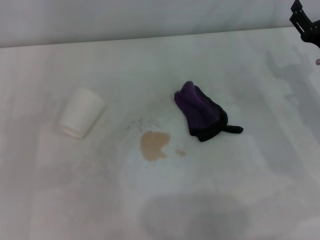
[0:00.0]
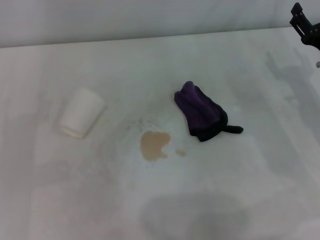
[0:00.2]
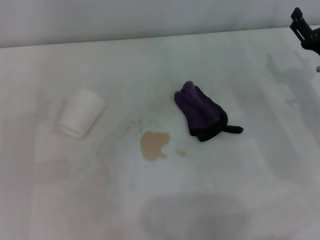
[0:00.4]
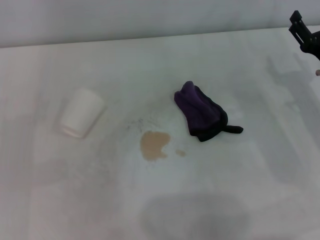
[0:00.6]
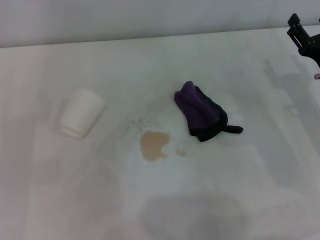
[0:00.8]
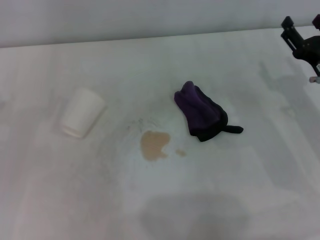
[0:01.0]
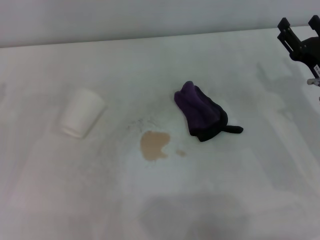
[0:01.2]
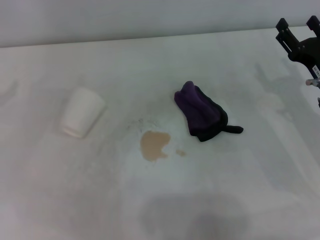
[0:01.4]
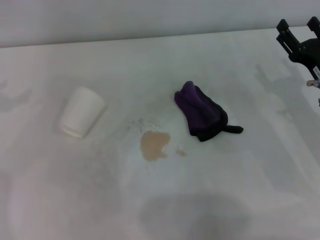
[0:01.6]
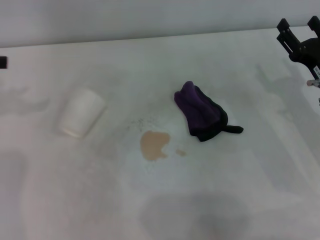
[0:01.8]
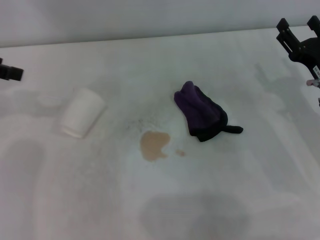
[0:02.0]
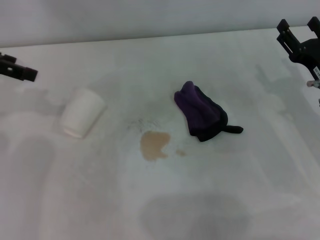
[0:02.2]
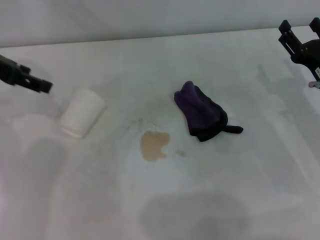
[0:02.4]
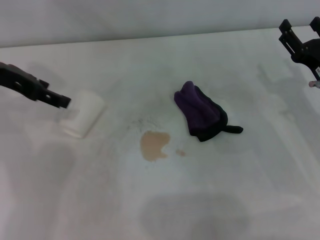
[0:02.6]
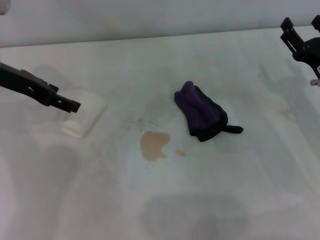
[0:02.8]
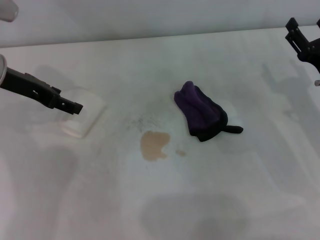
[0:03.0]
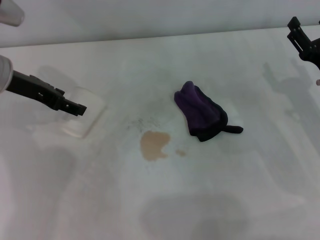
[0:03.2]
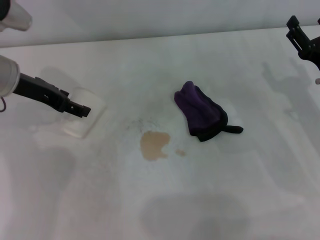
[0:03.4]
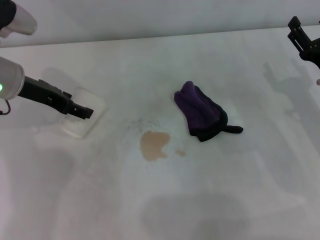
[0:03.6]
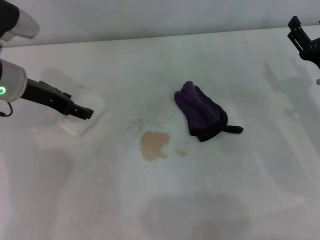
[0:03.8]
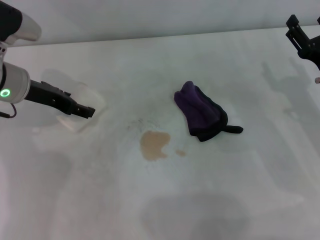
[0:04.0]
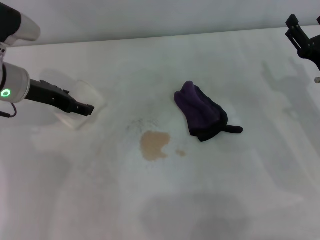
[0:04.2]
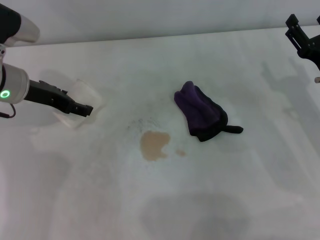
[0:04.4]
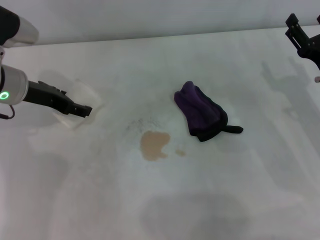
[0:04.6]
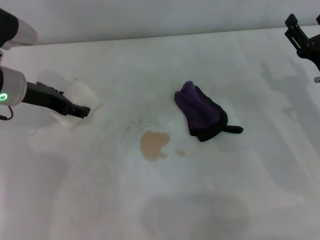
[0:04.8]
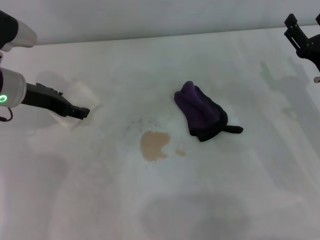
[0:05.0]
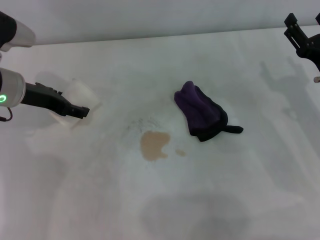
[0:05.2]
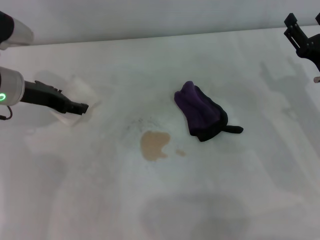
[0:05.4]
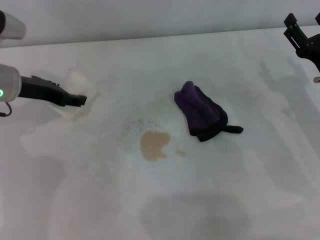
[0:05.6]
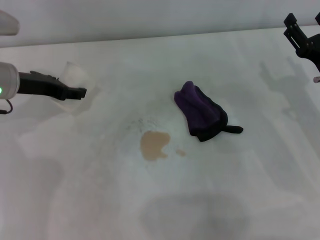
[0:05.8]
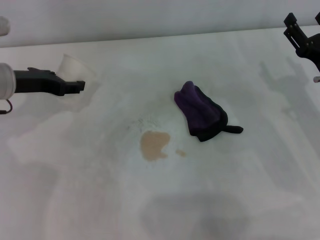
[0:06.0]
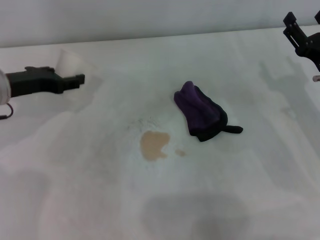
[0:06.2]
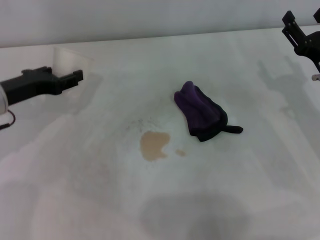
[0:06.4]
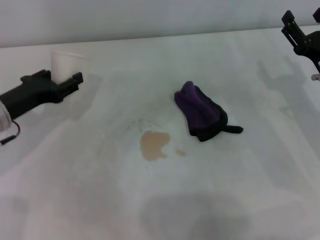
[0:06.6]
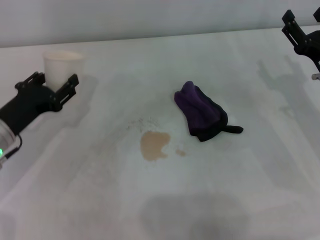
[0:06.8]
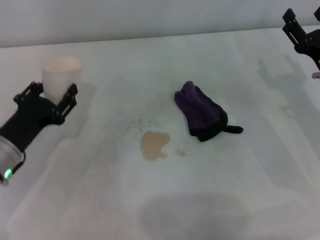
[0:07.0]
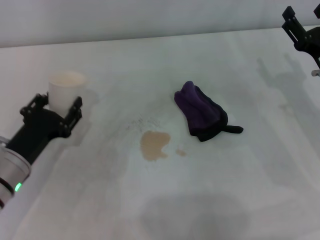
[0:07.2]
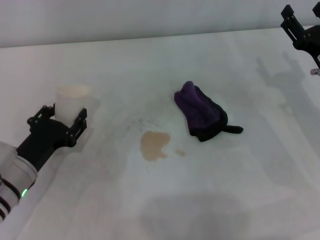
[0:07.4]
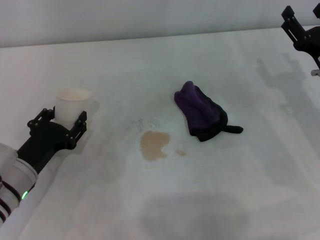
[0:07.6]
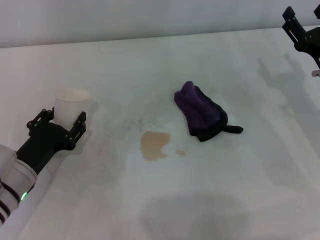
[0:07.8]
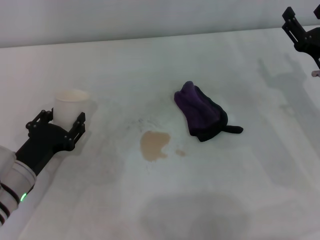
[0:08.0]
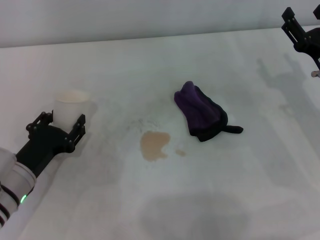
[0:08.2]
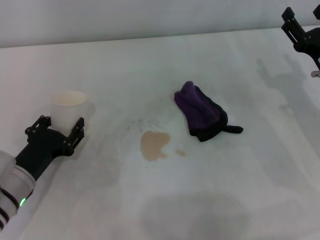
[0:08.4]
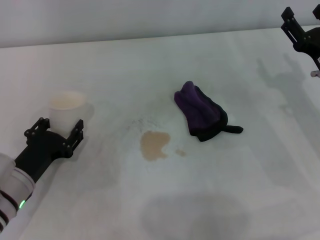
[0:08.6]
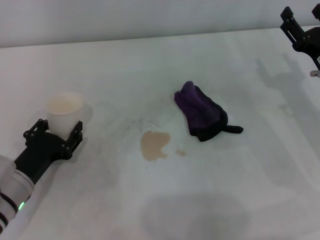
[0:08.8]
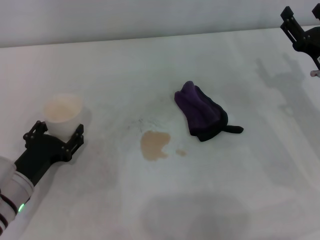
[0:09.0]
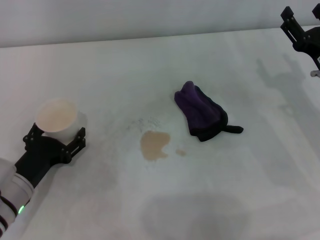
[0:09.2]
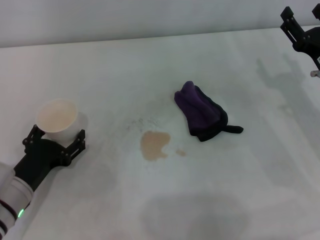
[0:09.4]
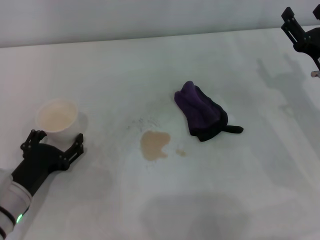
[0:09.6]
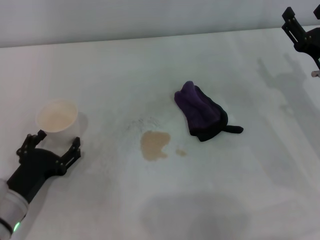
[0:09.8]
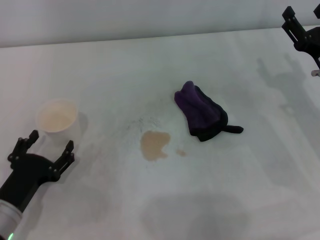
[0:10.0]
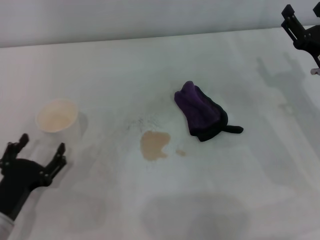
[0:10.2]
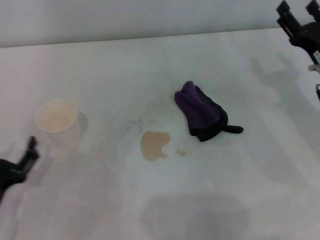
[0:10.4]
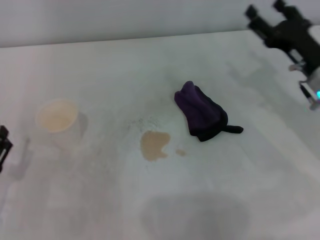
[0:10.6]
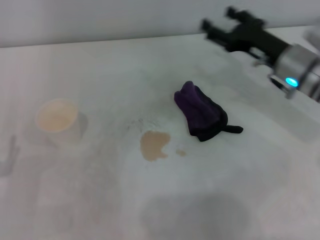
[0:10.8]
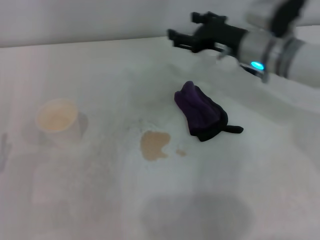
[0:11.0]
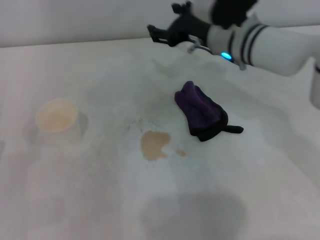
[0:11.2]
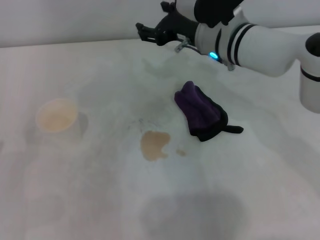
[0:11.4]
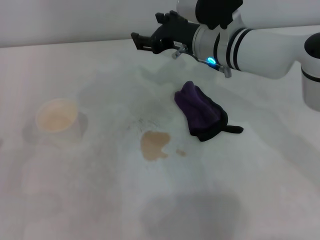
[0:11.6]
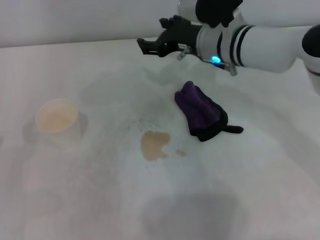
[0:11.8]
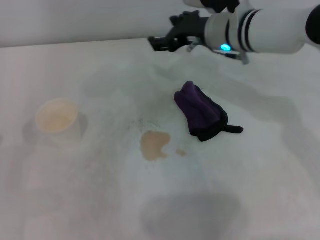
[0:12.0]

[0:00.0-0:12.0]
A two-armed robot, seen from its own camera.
Step, 0:00.0 to 0:05.0: Grasp the paper cup with the left gripper.
Step, 0:05.4 to 0:09.2: Stand the paper cup upright with the left gripper.
0:01.6 to 0:03.0: The left gripper moves to the right, about 15 cm.
0:03.0 to 0:04.4: The grippers make only small movements.
0:04.4 to 0:06.0: The left gripper closes.
0:06.0 to 0:07.6: The left gripper goes approximately 20 cm backward and downward.
0:07.6 to 0:09.0: The grippers stay close to where they were, moving slightly.
0:09.0 to 0:10.4: The left gripper shifts about 5 cm backward, and opens its fingers.
0:10.4 to 0:12.0: The left gripper moves some 5 cm, while the right gripper is displaced to the left, forward and upward by roughly 20 cm.

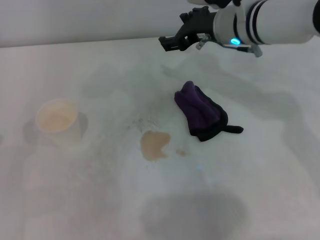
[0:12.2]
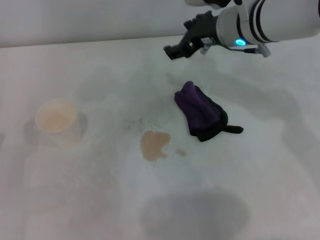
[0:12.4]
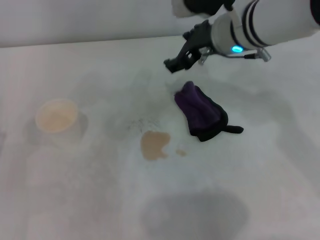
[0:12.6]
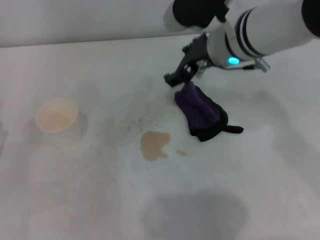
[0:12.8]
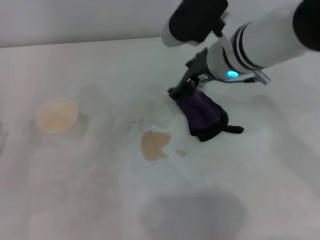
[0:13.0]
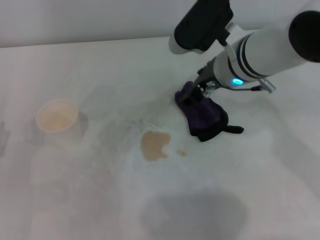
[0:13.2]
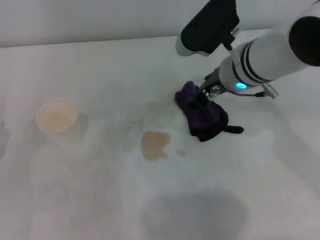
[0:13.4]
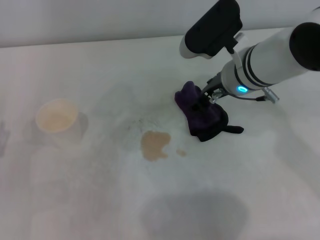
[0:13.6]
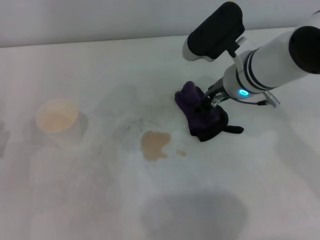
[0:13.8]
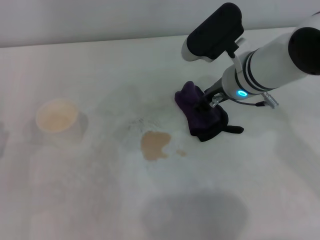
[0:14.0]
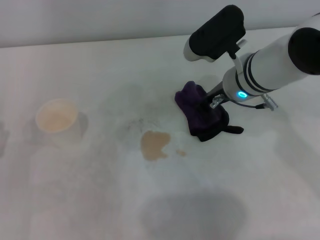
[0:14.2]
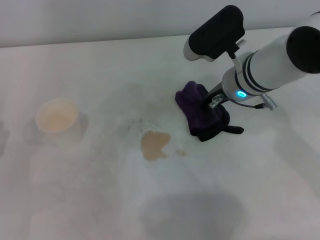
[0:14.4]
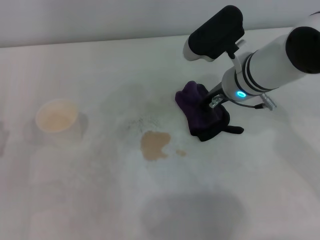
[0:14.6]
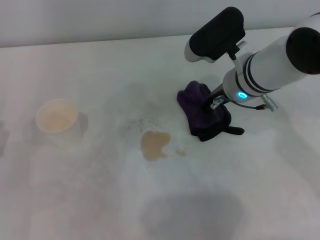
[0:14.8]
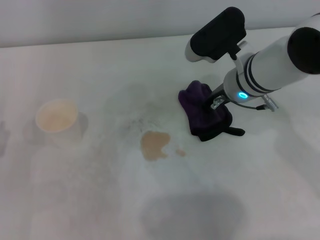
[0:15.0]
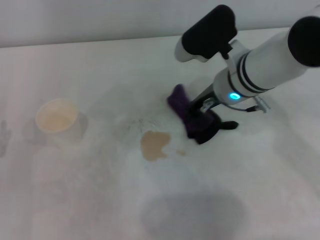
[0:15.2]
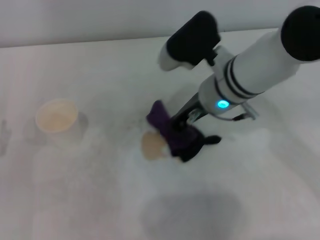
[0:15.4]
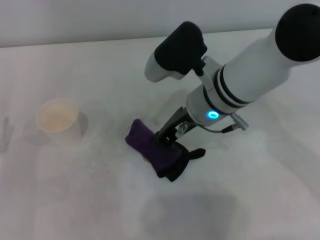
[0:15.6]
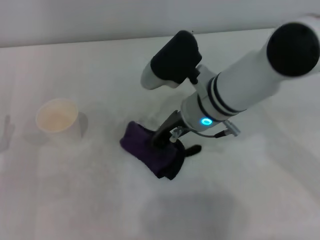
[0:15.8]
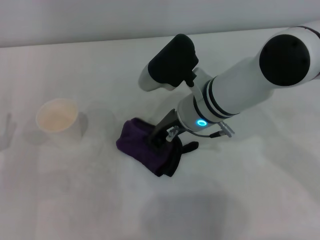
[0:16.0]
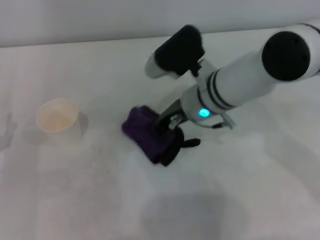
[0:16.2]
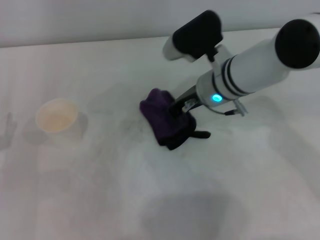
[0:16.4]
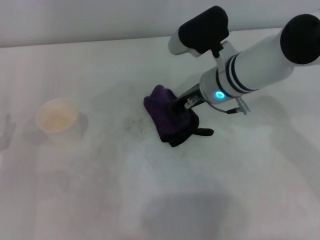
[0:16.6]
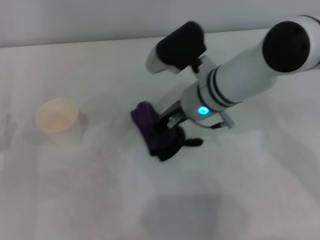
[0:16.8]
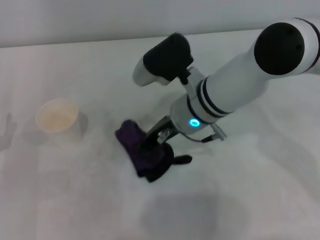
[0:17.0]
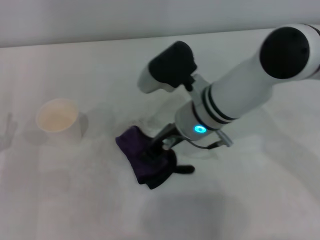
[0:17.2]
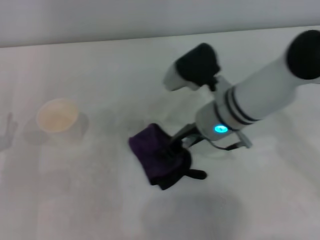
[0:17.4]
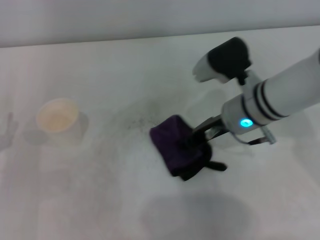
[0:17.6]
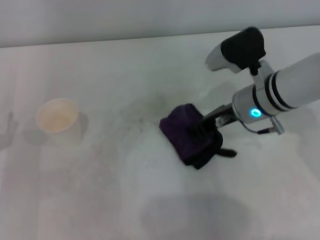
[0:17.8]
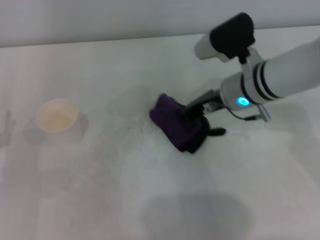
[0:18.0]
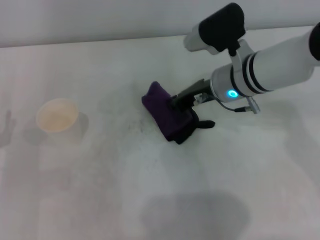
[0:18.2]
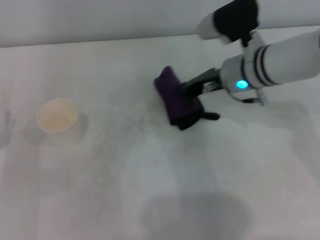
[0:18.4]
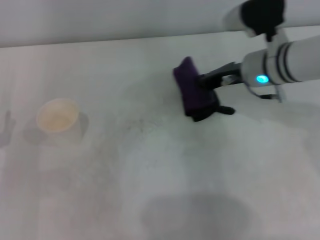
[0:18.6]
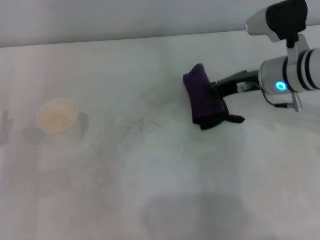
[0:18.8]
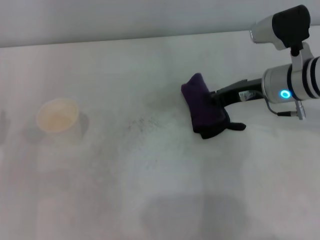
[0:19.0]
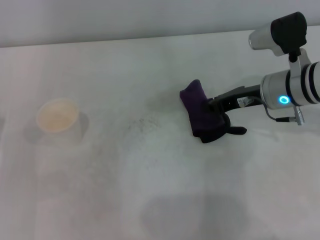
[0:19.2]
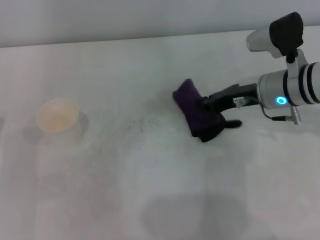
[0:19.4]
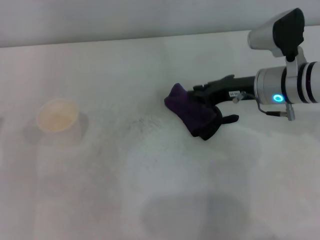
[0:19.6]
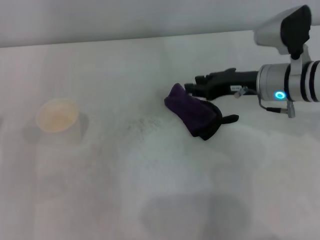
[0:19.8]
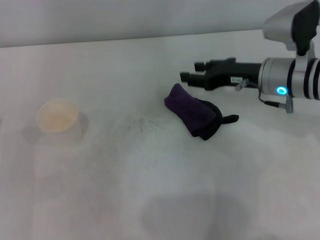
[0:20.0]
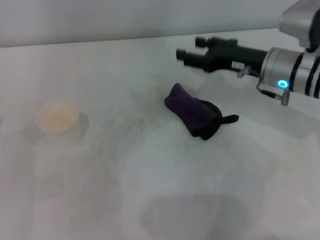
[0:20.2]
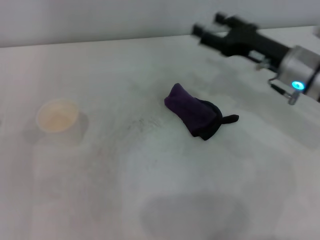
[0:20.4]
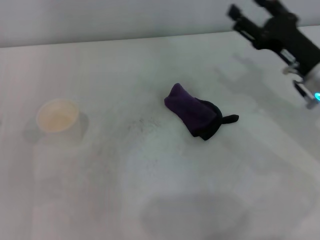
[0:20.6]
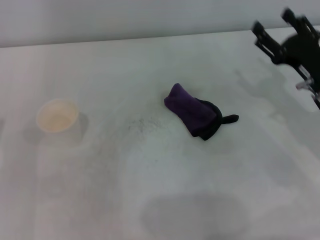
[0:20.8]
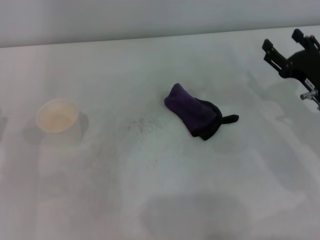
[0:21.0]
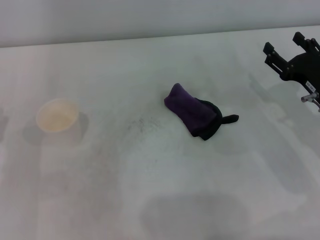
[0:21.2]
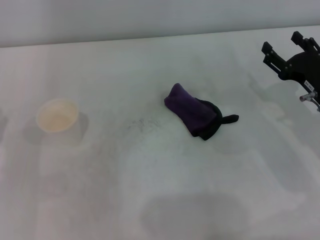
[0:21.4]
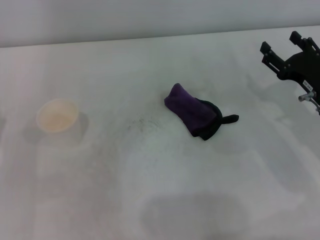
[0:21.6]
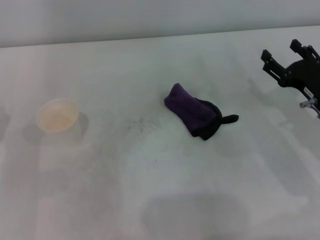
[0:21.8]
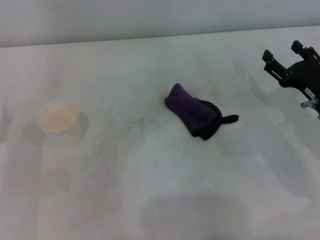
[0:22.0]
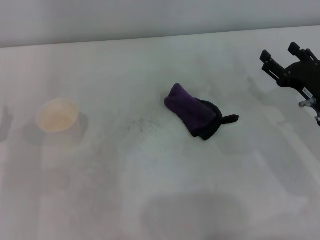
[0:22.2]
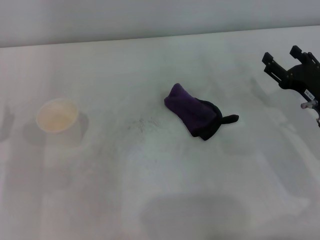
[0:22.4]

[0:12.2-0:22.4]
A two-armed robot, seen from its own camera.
Step, 0:12.2 to 0:14.8: Grasp the rag with the right gripper.
Step, 0:15.0 to 0:18.6: Wipe the stains off the table with the right gripper.
Step, 0:18.8 to 0:19.4: Place the rag on the table with the right gripper.
0:12.2 to 0:13.6: The right gripper shifts roughly 5 cm backward.
0:13.6 to 0:15.2: The right gripper closes.
0:15.2 to 0:16.6: The grippers move only a little.
0:16.6 to 0:18.0: The right gripper moves approximately 5 cm to the left and comes back.
0:18.0 to 0:19.4: The right gripper moves to the right, about 5 cm.
0:19.4 to 0:21.0: The right gripper heads to the right and backward, covering approximately 10 cm, and opens its fingers.
0:21.0 to 0:22.4: The grippers make only small movements.
